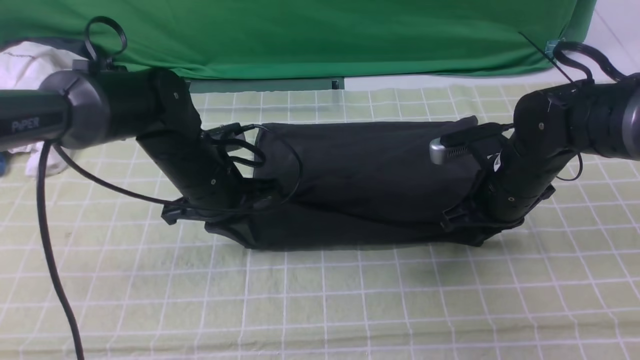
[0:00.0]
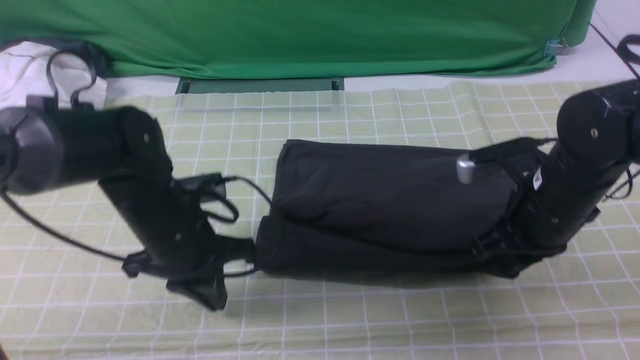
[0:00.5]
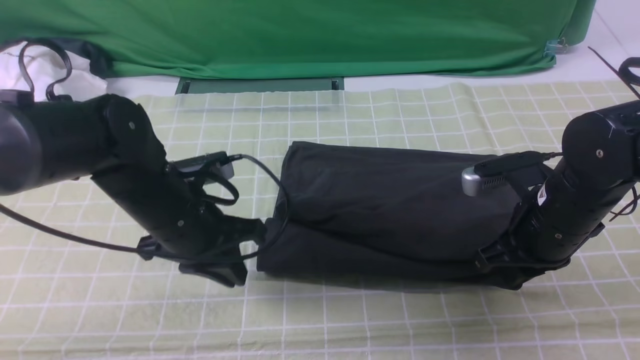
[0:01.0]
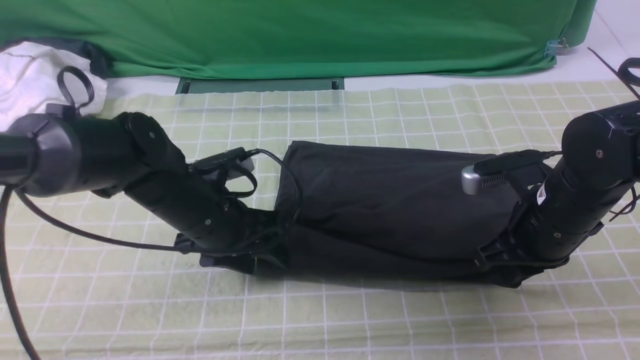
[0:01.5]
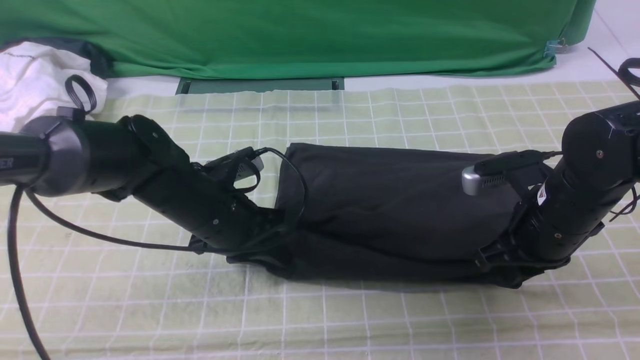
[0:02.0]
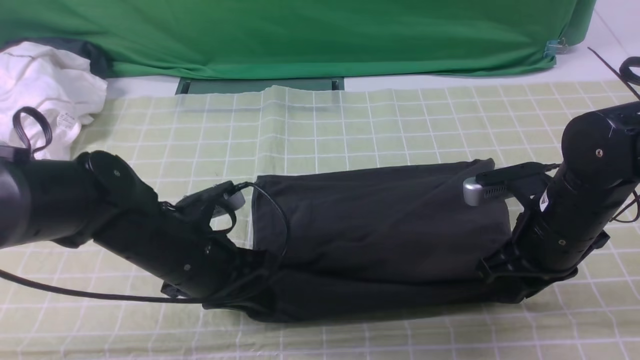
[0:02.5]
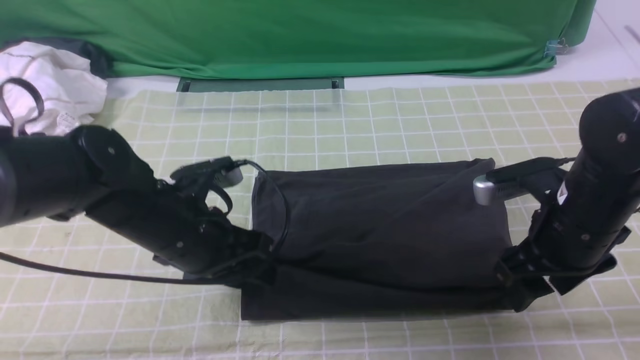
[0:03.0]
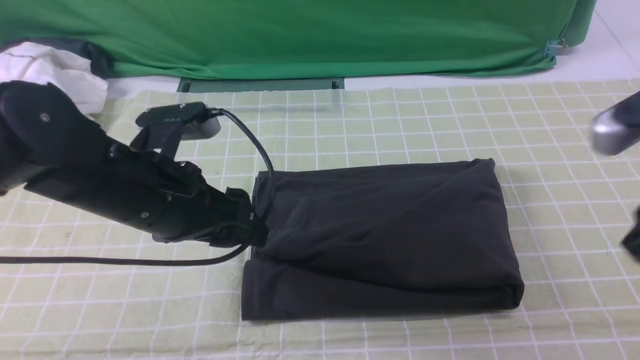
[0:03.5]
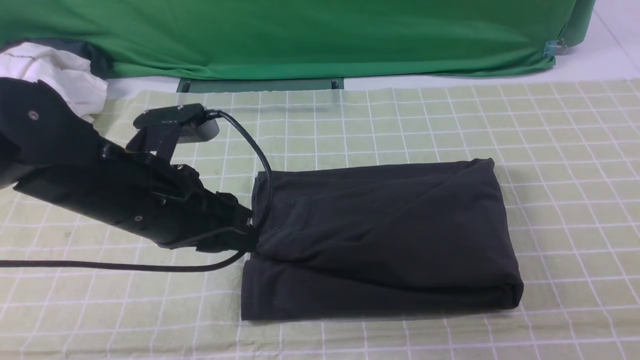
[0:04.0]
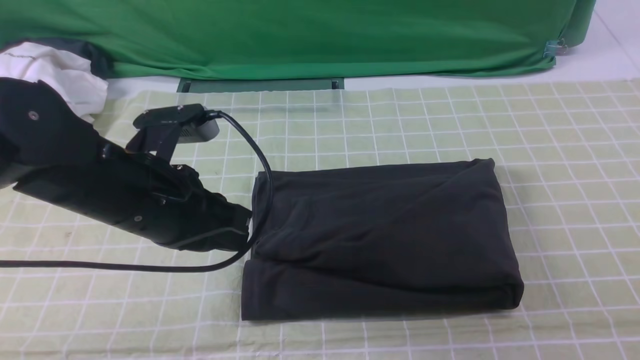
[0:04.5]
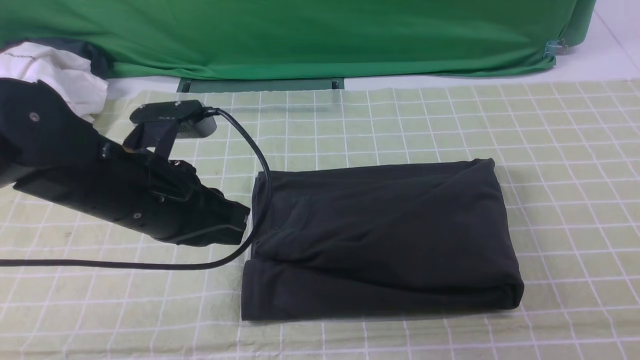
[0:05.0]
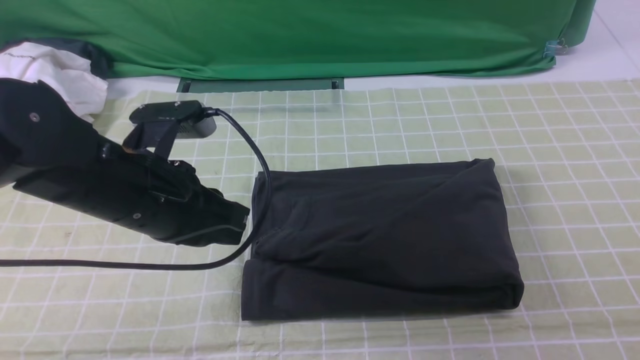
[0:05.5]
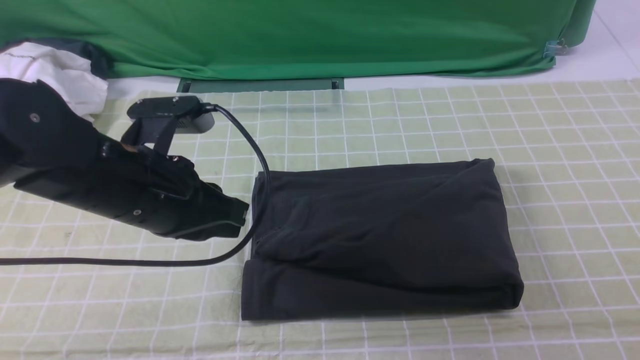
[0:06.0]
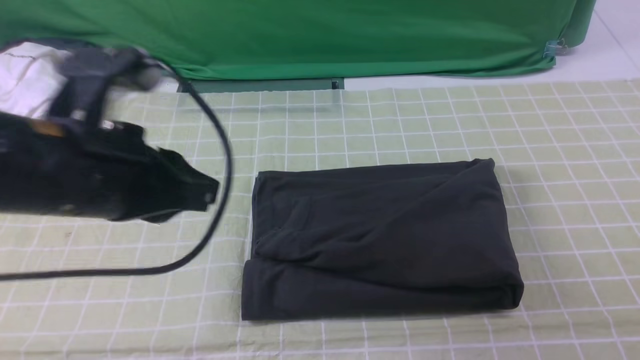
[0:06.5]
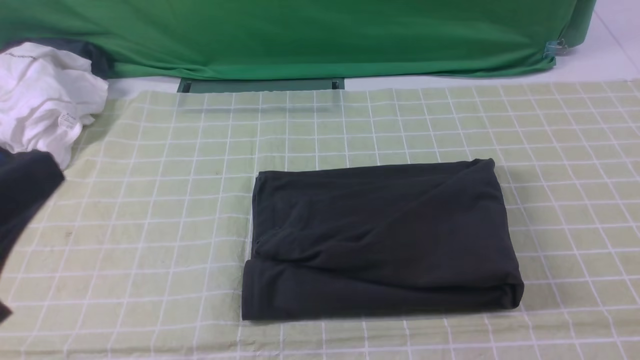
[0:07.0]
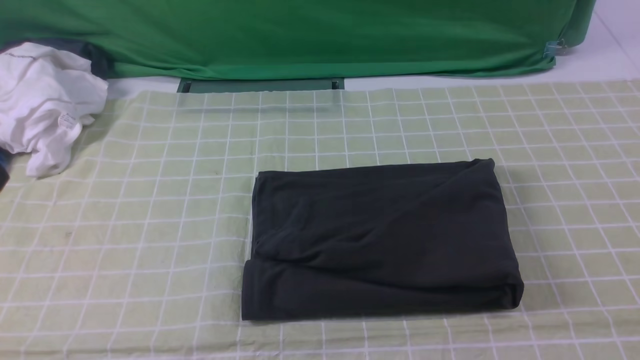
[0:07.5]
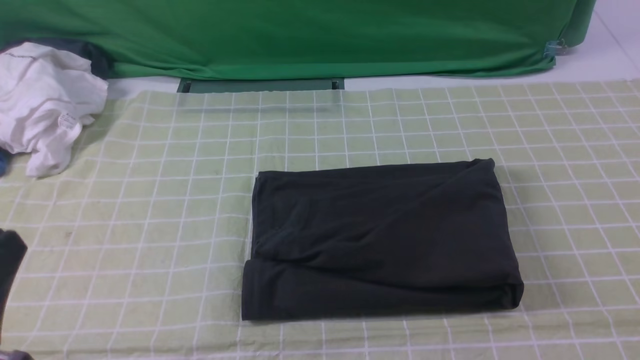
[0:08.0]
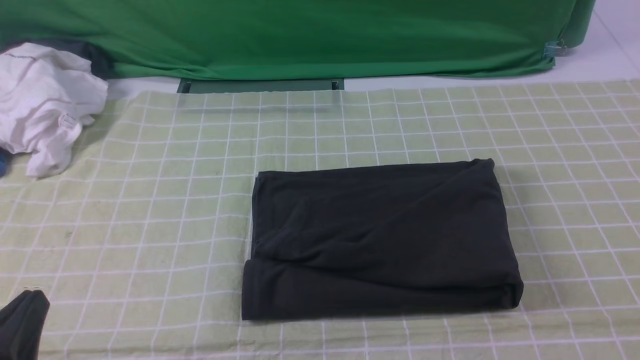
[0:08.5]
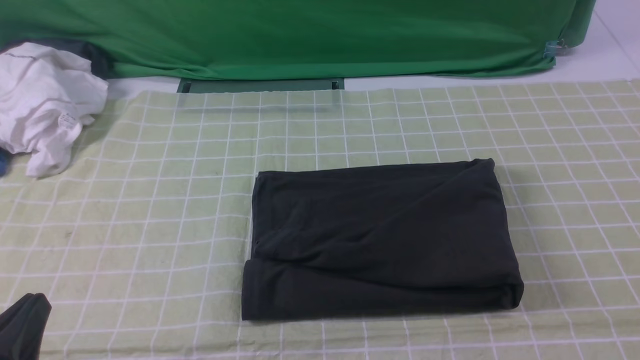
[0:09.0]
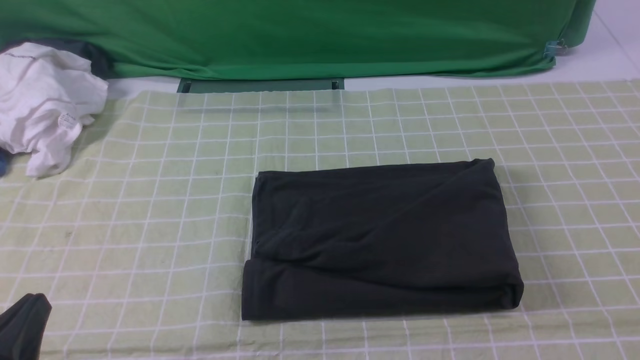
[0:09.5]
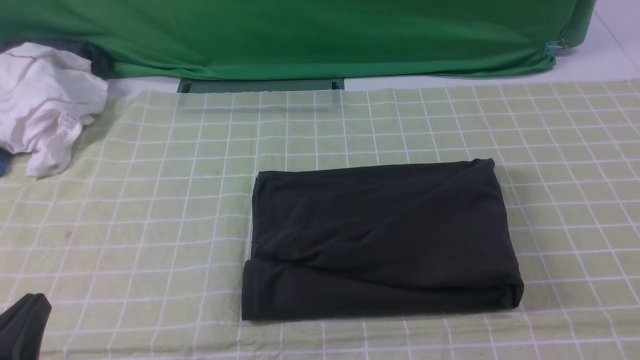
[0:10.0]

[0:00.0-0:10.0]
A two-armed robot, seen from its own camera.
0:00.0 to 0:02.0: The right gripper travels backward by about 5 cm; the left gripper shifts by some 5 cm, and opens and closes again.
0:02.0 to 0:04.0: The right gripper shifts approximately 30 cm backward, upward and to the right, and opens, then closes once more. Meanwhile the left gripper shifts approximately 10 cm upward and backward, and opens and closes again.
0:04.0 to 0:06.0: The left gripper closes up. The right gripper heads downward, covering about 15 cm.
0:06.0 to 0:08.0: The left gripper moves backward and to the left, some 20 cm.
0:08.0 to 0:10.0: The left gripper goes some 5 cm downward.
